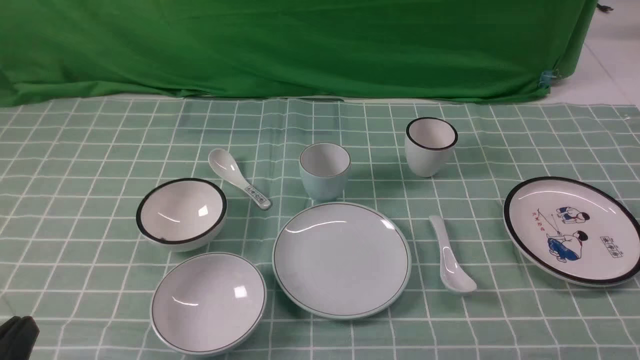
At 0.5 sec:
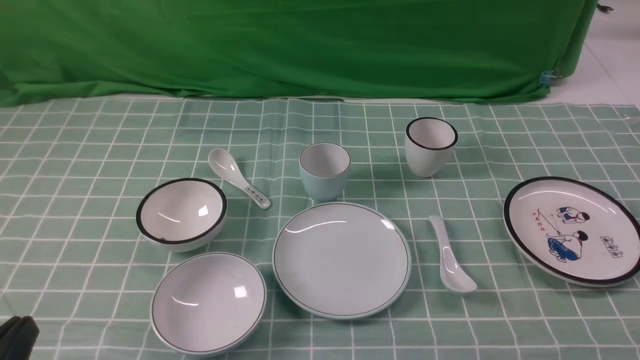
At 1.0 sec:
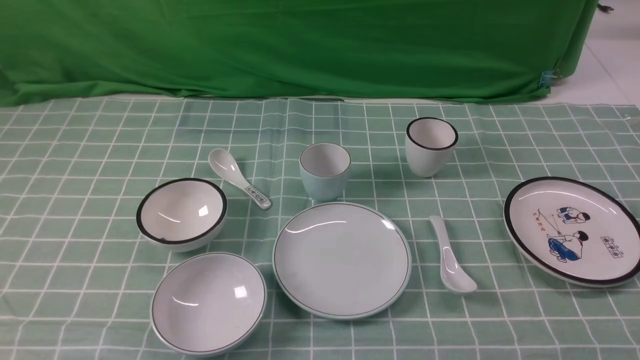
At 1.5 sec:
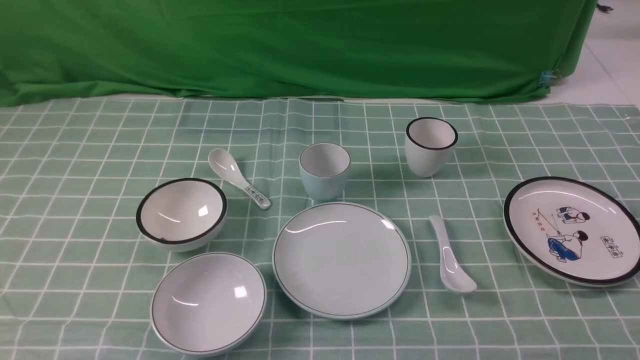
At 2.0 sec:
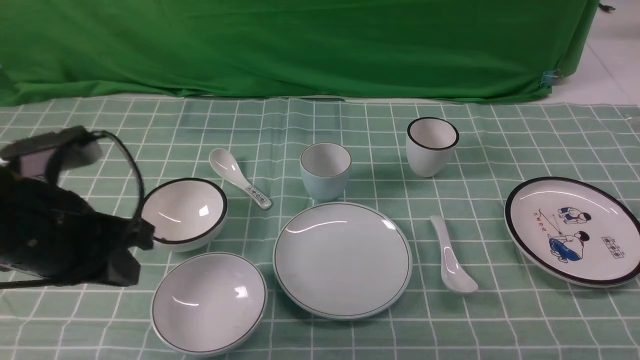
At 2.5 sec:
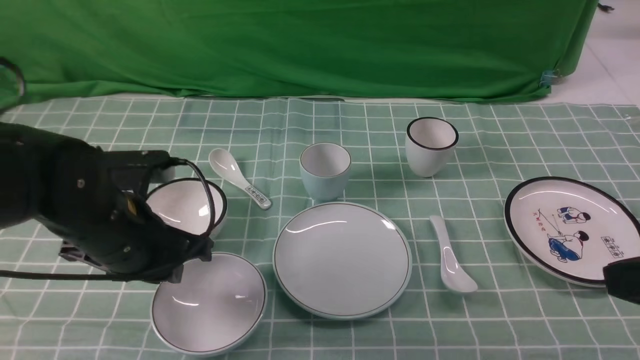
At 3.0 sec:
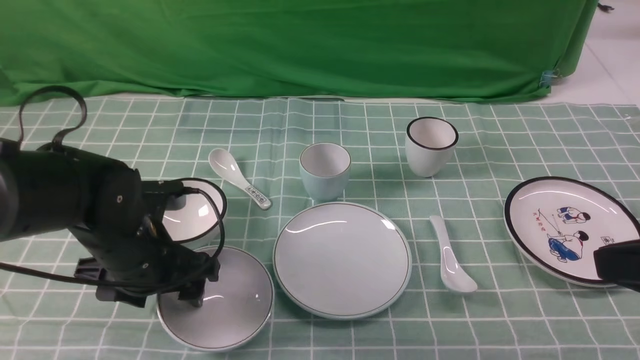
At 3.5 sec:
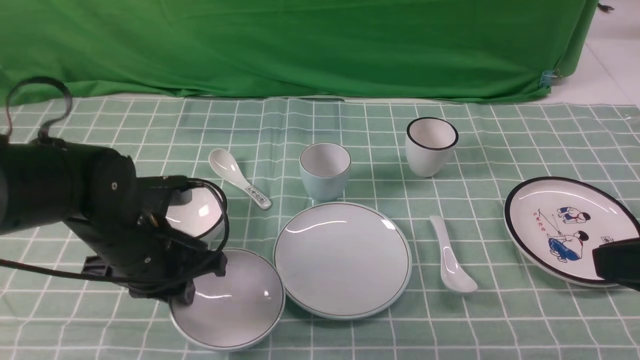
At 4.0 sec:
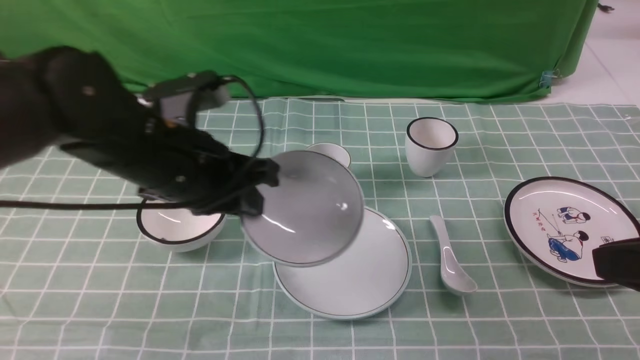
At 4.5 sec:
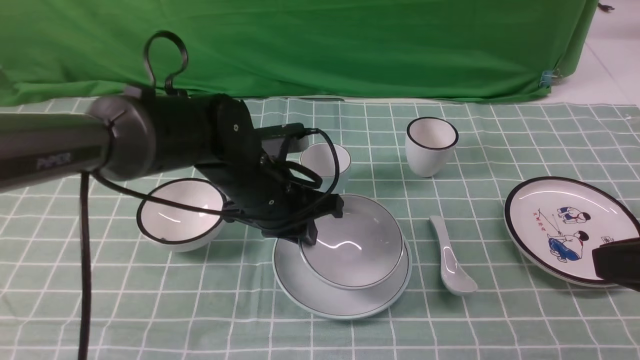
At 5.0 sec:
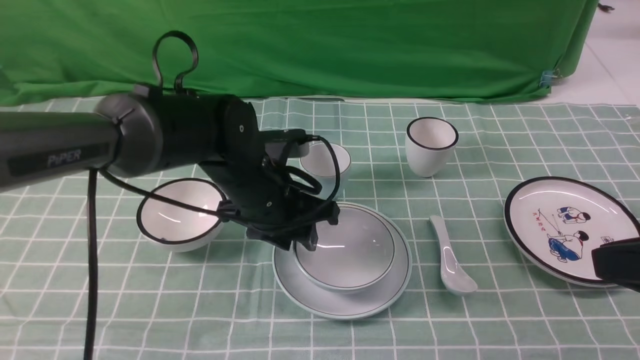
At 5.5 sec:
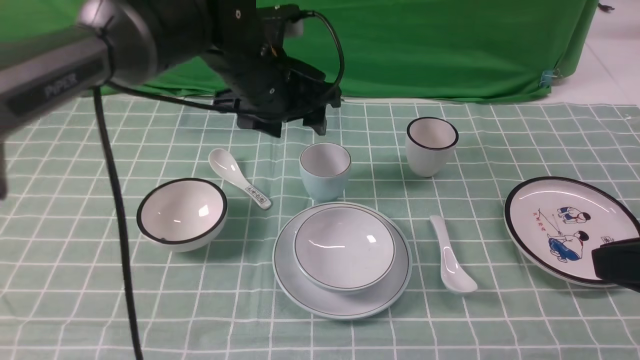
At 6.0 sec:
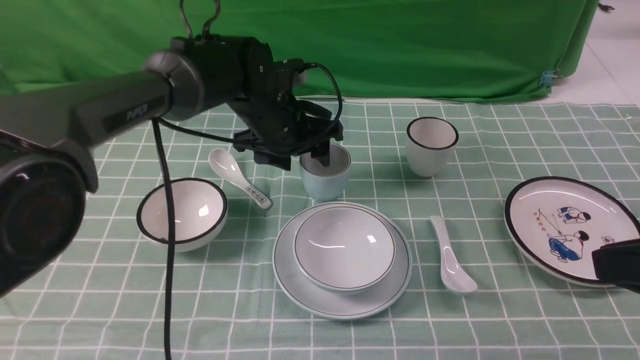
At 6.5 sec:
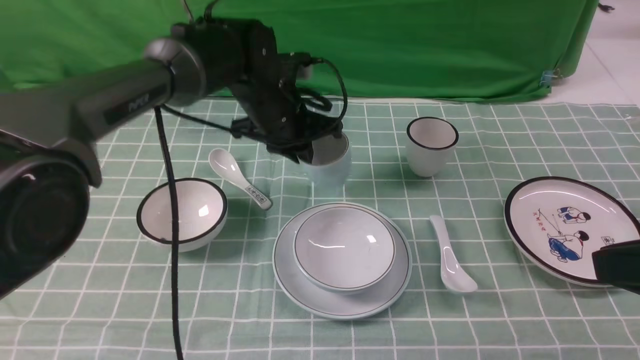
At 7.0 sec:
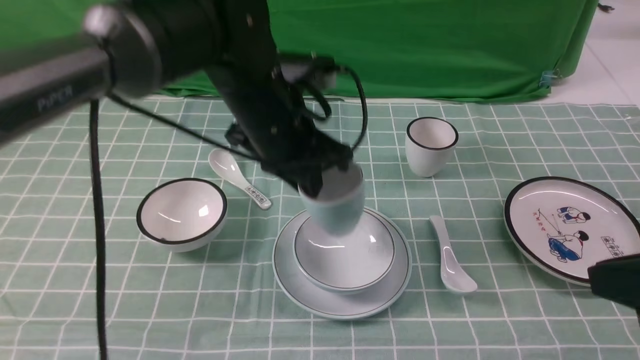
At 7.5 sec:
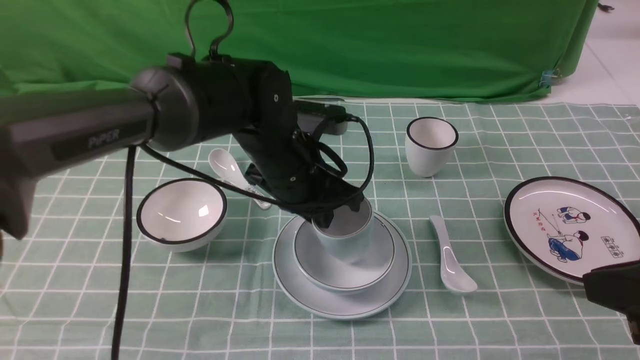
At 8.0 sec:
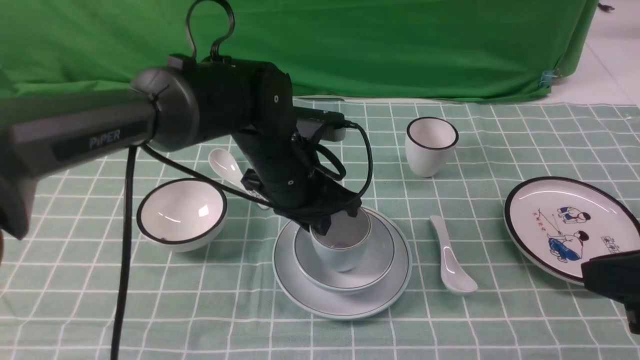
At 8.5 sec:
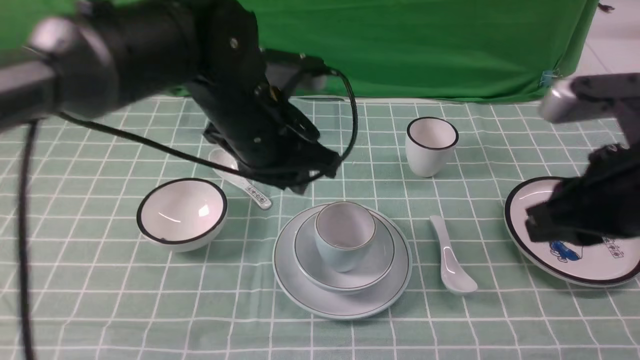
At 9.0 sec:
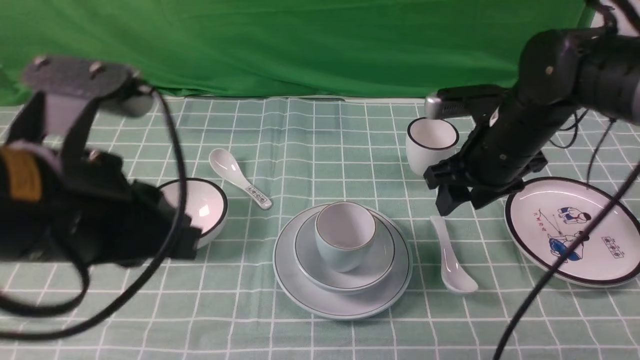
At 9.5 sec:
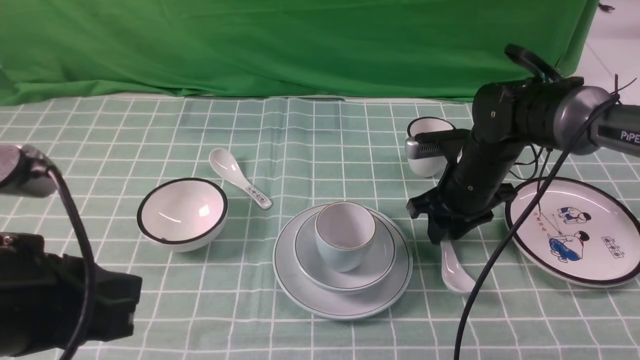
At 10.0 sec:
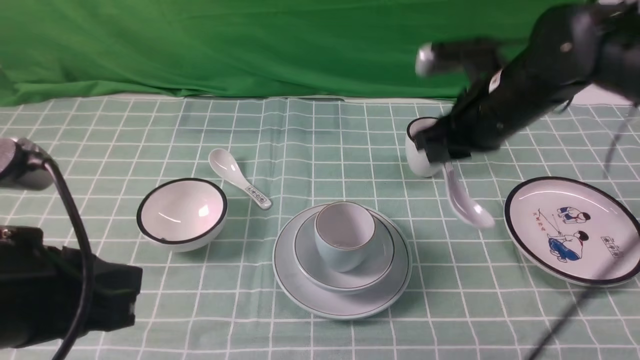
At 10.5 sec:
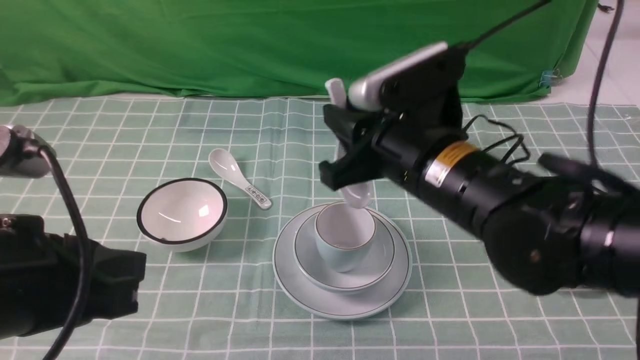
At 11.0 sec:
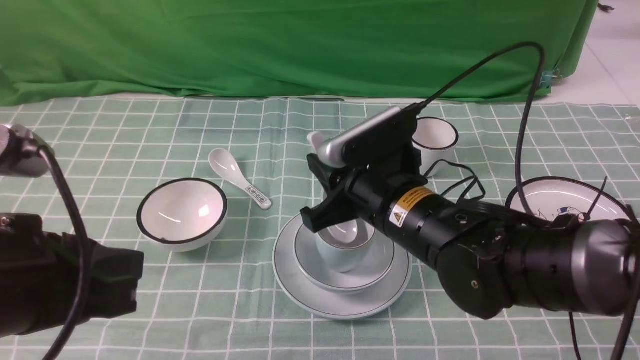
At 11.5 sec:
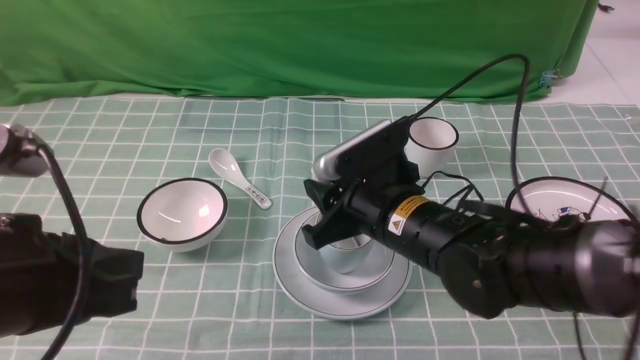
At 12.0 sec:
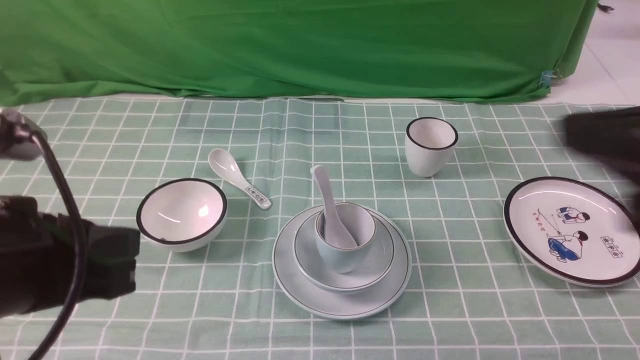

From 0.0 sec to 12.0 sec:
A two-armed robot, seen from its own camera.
Task of the whole recording: place the bowls on the plates on the blue tablecloth, put the cups on the bowls, and place the spoons in the cups.
Step, from 0.0 sec to 3.5 sec: Grasp the bowl with the left gripper.
Step, from 4.0 sec to 5.0 sec: Place the bowl on the plate with the left gripper.
Step, from 5.5 sec to 6.0 sec: Grasp the cup with the left gripper.
Step, from 6.5 sec to 8.0 sec: Place the cup on the bowl with the left gripper.
Step, from 8.5 sec to 9.5 sec: Grasp the spoon with the right gripper.
Step, from 10.0 sec to 11.5 sec: Place the spoon on the cup with the right gripper.
From 0.0 sec to 2.0 sec: The right gripper travels upward by approximately 10 cm, and closes, while the left gripper travels forward and upward by about 20 cm.
From 2.0 sec to 4.0 sec: The right gripper goes roughly 10 cm forward, upward and to the left. Meanwhile the left gripper is displaced to the right and forward by about 10 cm, travels downward and back again, approximately 10 cm each way, and opens and closes again.
From 4.0 sec to 6.0 sec: The left gripper is displaced forward by some 15 cm, and opens.
From 6.0 sec to 8.0 sec: The left gripper travels backward by about 10 cm, and closes up.
From 8.0 sec to 10.0 sec: The right gripper goes some 25 cm forward and to the left, and opens, then closes again, while the left gripper moves backward, to the left and upward, about 30 cm.
From 10.0 sec to 12.0 sec: The right gripper shifts about 30 cm backward, upward and to the right.

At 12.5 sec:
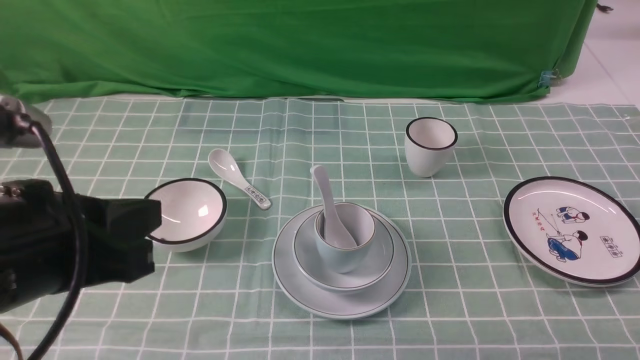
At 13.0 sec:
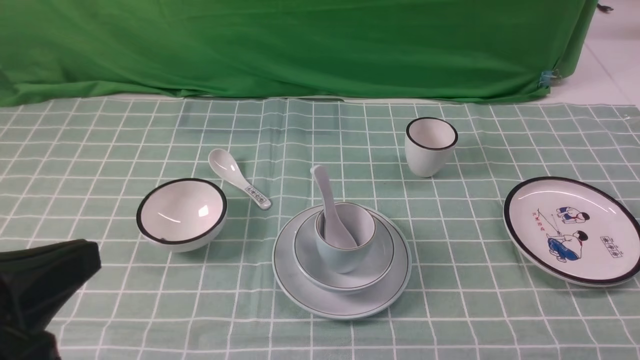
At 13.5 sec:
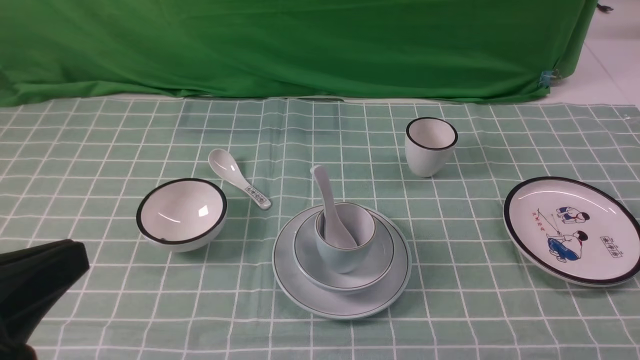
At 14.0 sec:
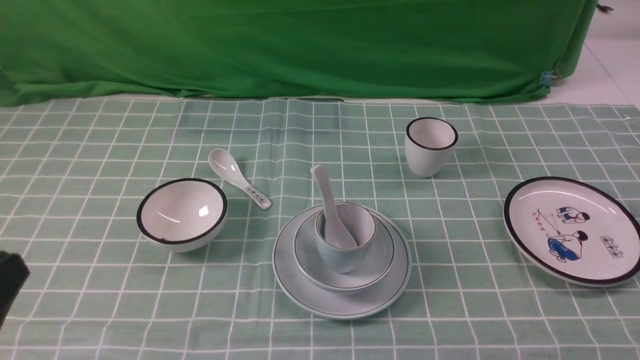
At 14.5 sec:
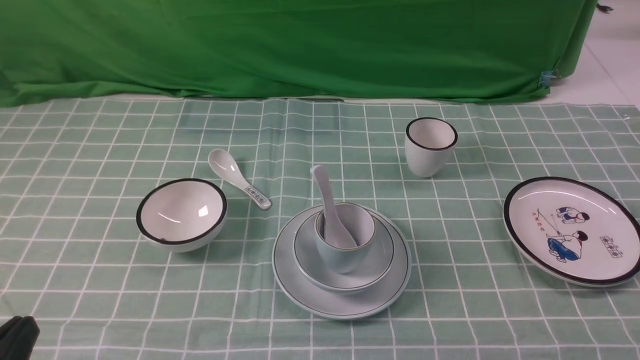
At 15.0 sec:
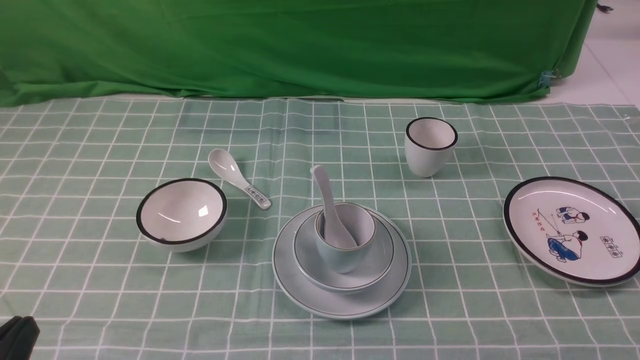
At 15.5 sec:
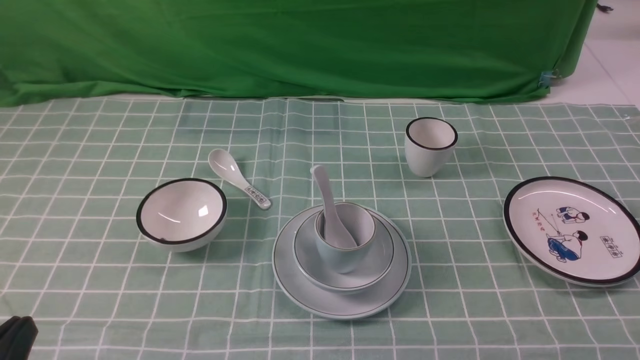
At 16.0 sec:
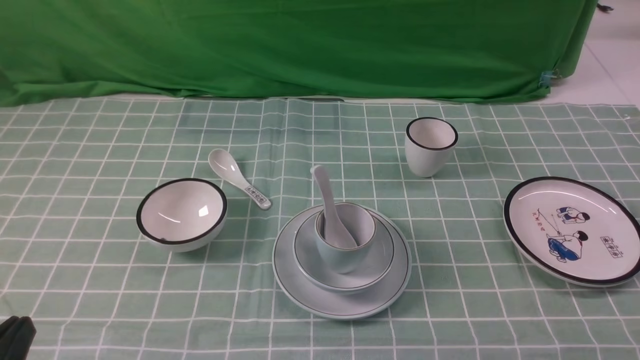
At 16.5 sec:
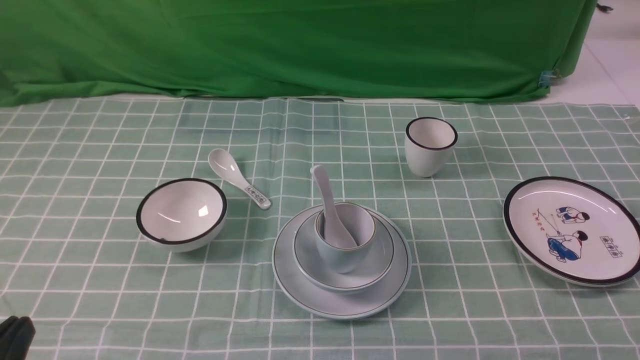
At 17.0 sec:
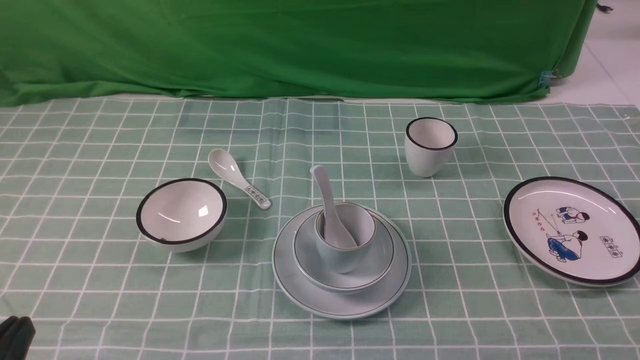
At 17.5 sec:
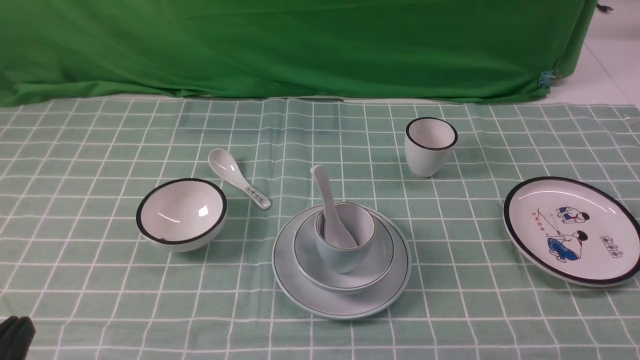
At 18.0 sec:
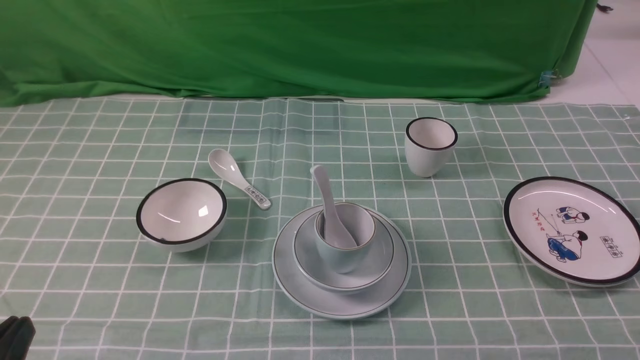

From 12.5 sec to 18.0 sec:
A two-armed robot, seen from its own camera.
Task of the whole recording: place the bowls on the plates on the blue tablecloth, put the cups on the bowls, and place the spoons in the cups.
From 12.5 sec to 14.5 sec: The left gripper heads downward, backward and to the left, covering some 15 cm.
